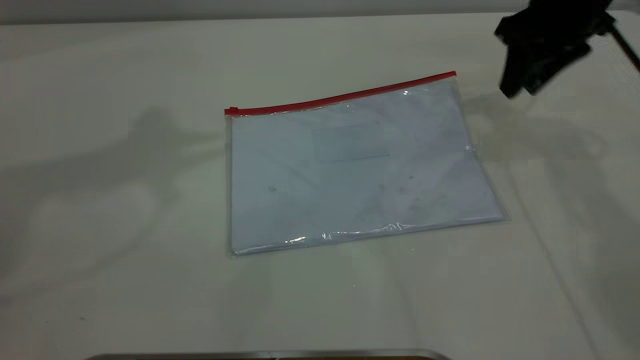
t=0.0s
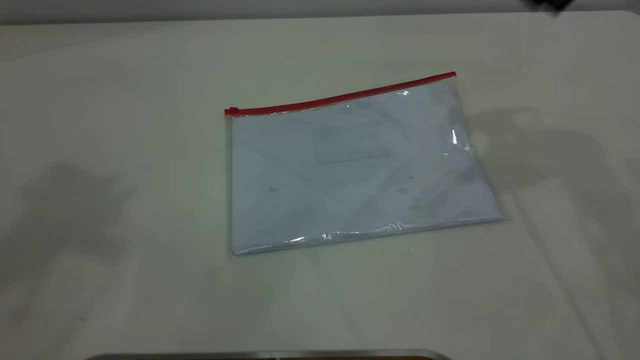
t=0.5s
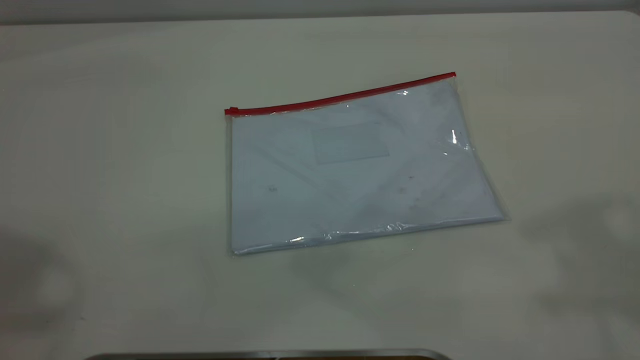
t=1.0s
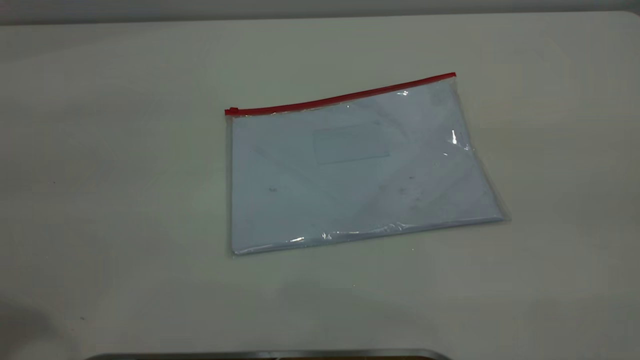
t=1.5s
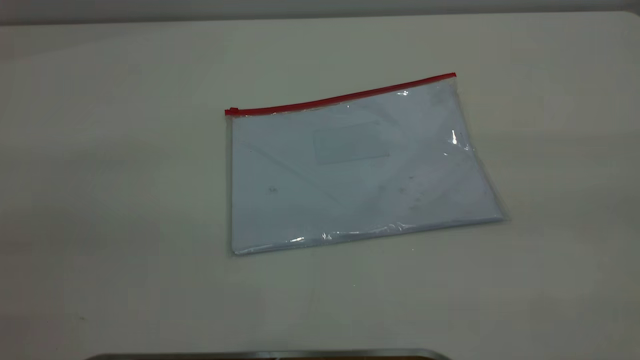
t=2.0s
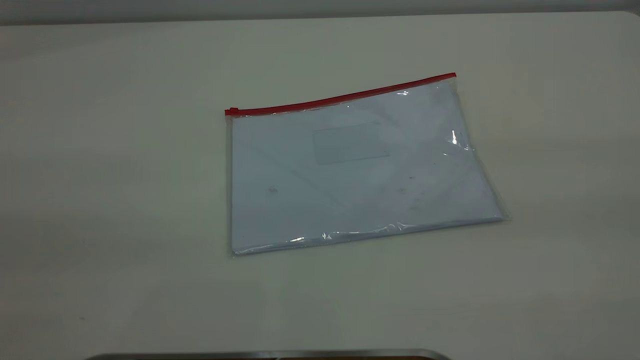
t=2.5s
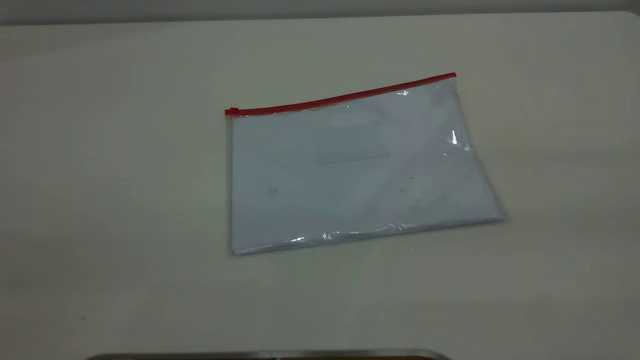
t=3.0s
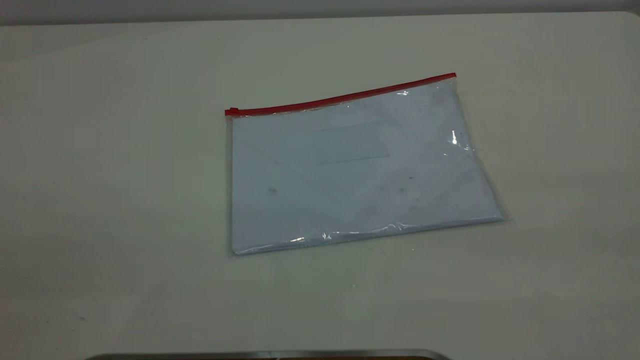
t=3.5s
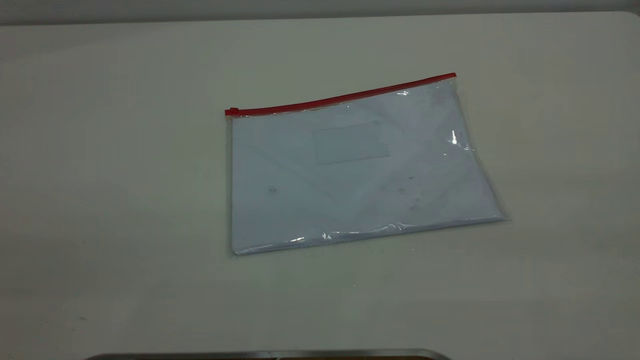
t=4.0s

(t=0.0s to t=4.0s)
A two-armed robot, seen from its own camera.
t=0.0s - t=2.0s: The right gripper travels backward and upward by about 40 cm.
